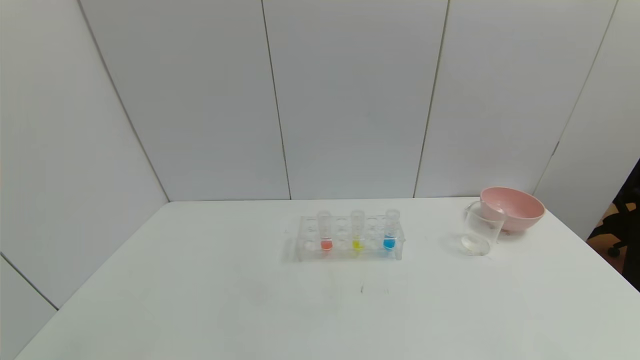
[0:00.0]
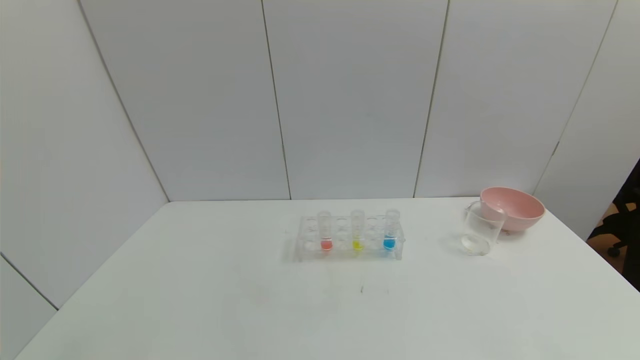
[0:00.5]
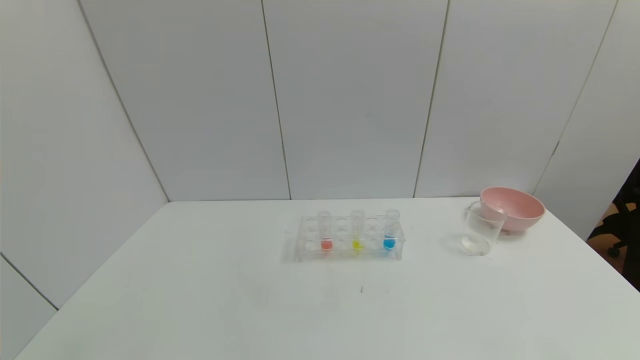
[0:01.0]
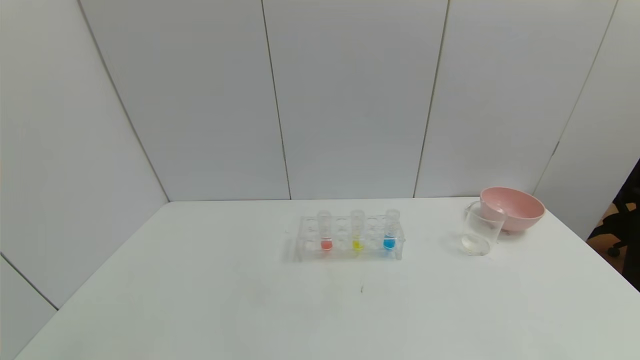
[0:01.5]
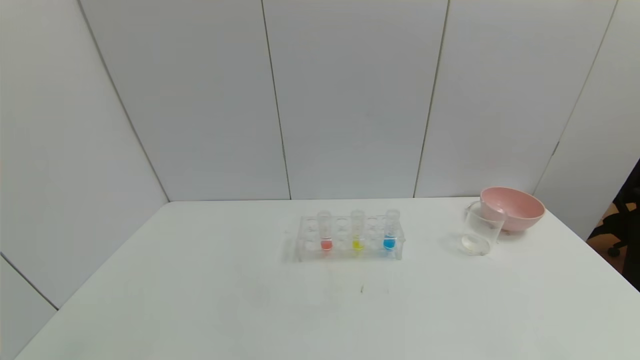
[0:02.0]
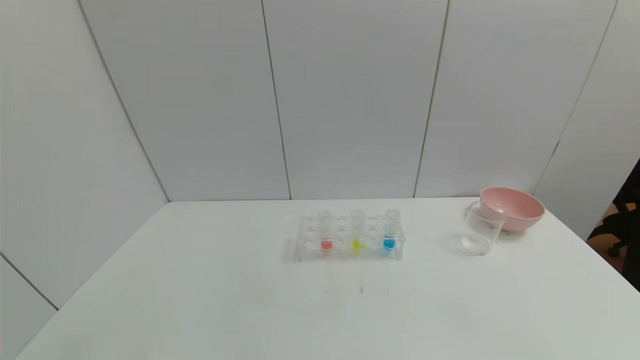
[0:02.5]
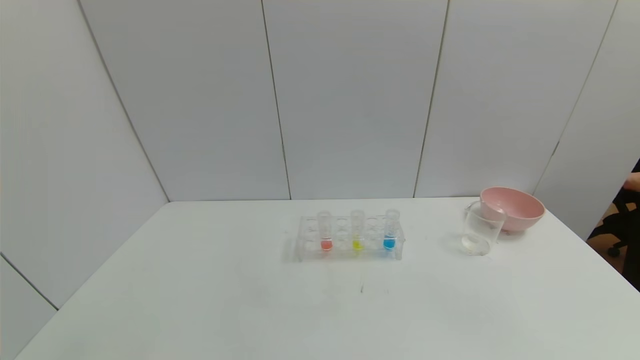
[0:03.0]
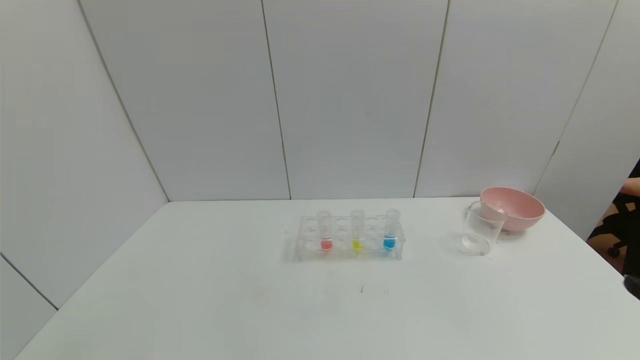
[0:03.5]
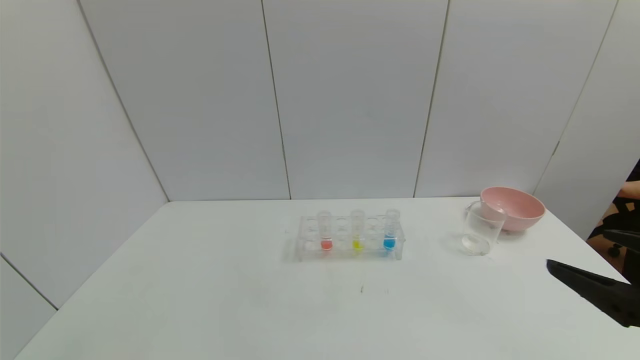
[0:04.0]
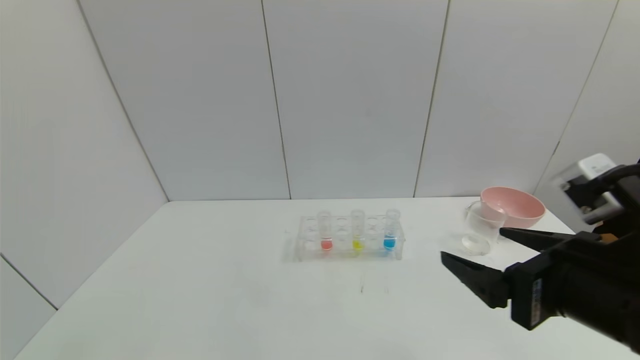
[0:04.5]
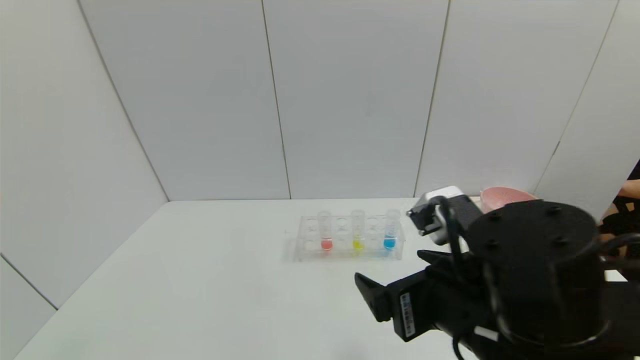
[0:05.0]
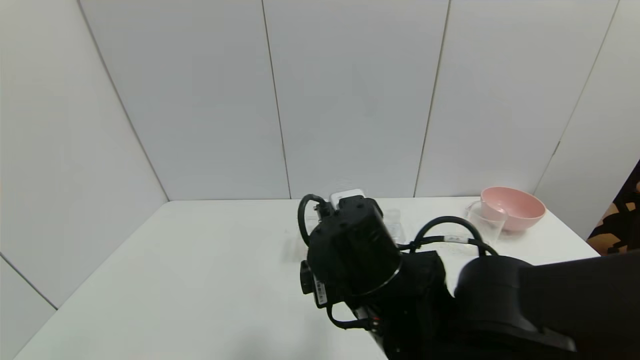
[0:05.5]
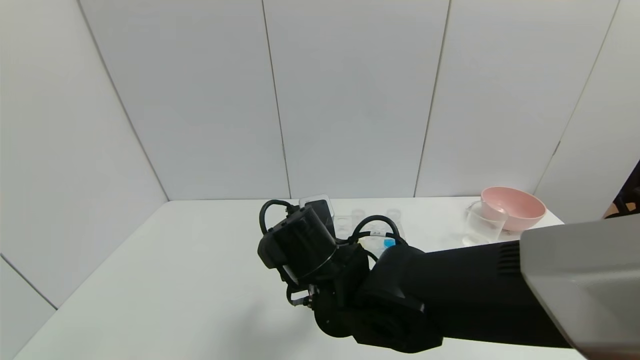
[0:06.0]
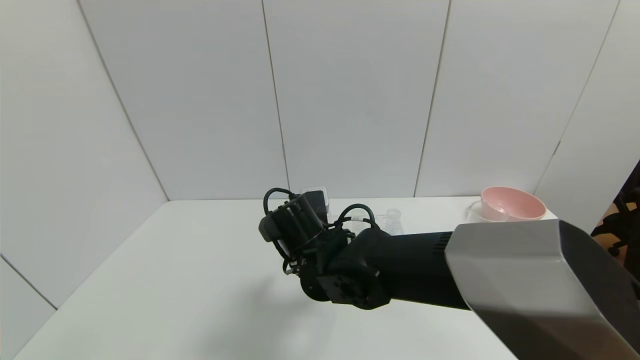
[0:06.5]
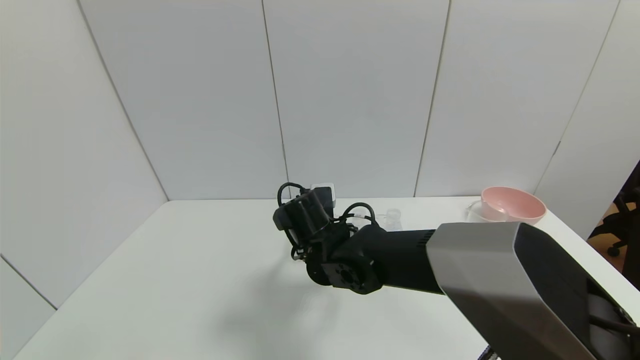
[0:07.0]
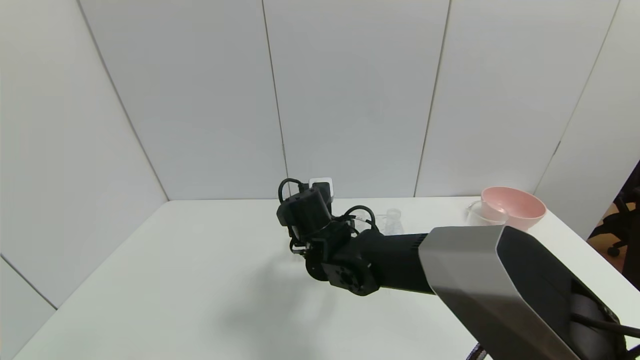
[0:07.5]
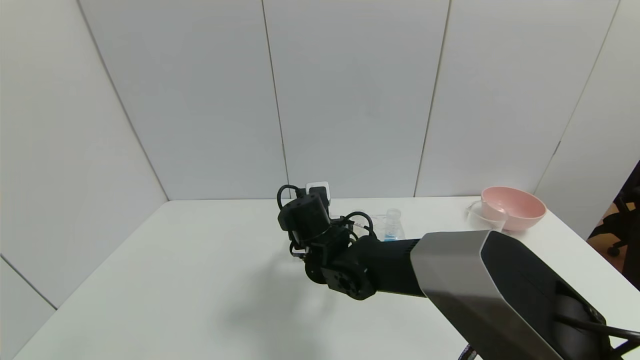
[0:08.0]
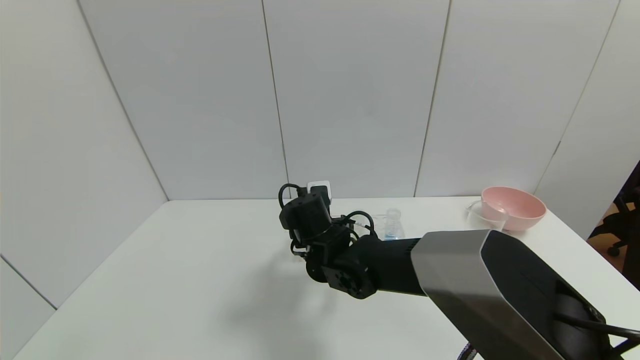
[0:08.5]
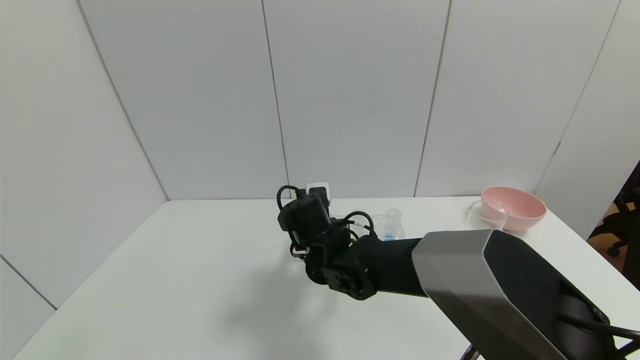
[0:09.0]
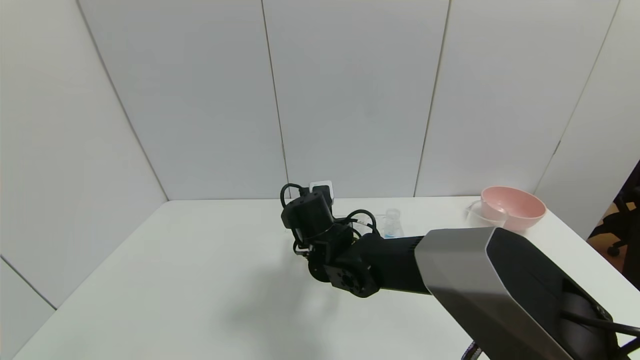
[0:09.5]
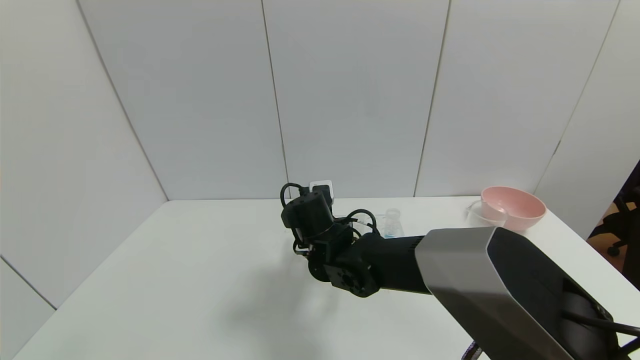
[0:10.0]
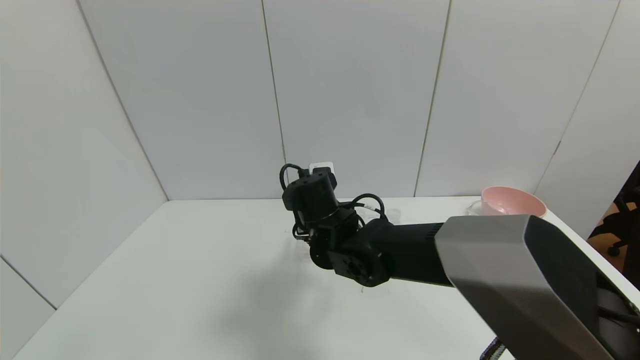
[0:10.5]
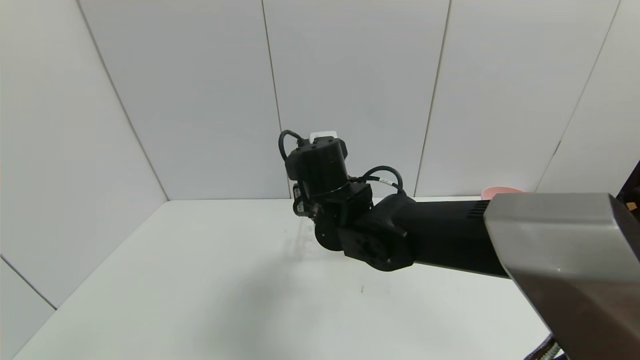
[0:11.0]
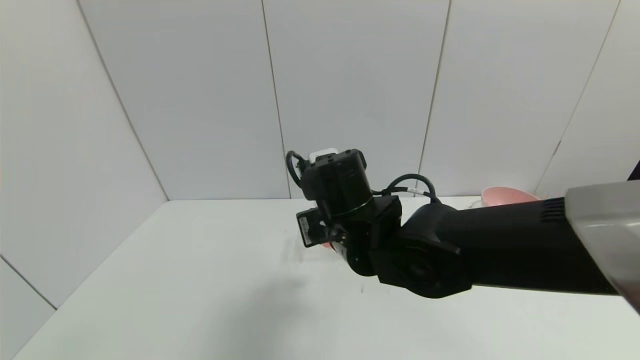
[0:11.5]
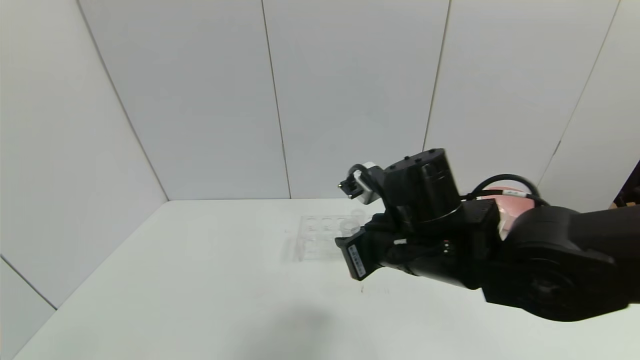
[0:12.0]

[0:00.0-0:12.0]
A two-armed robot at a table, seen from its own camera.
Task of the whole recording: pick up the test tube with yellow pigment and the test tube with red pigment by grippers and pour them into the beaker.
Step, 0:00.0 to 0:09.0: Grasp the red reagent with the right gripper.
0:00.0 to 0:02.0: Both grippers stay about where they are.
0:02.0 to 0:04.0: The right gripper moves upward and forward, some 20 cm.
0:04.0 to 0:06.0: The right gripper shifts some 35 cm to the left and forward.
0:06.0 to 0:08.0: The right gripper shifts some 10 cm forward.
0:08.0 to 0:10.0: The right gripper closes up.
0:10.0 to 0:12.0: The right gripper goes about 20 cm to the right, backward and upward.

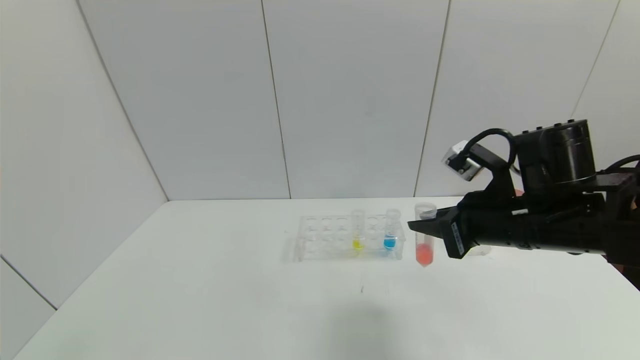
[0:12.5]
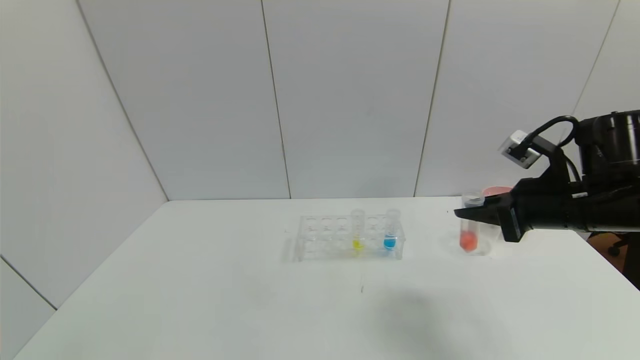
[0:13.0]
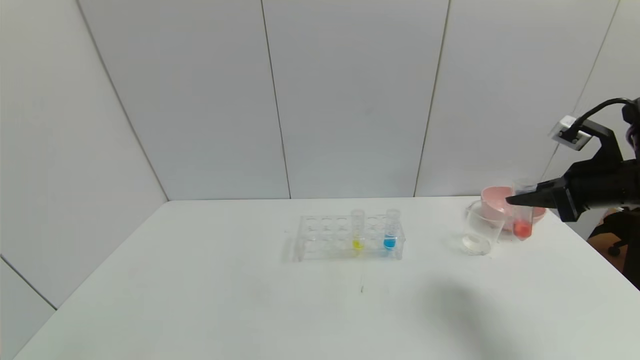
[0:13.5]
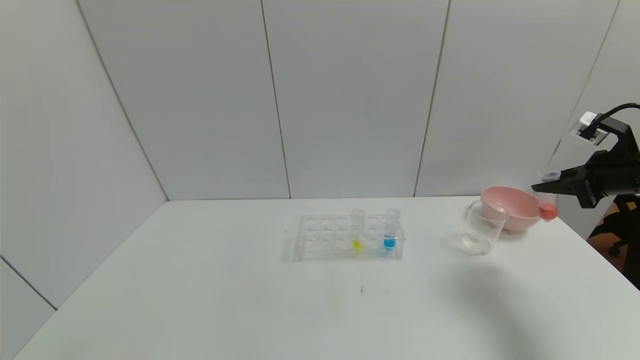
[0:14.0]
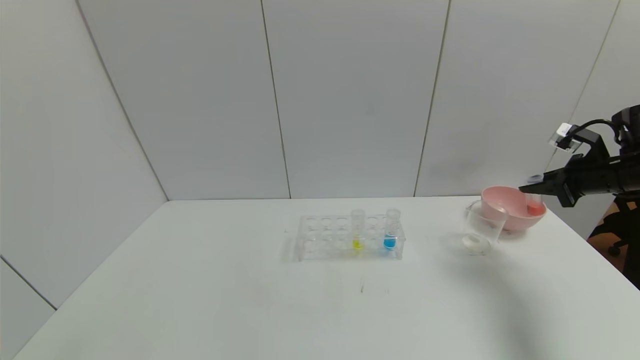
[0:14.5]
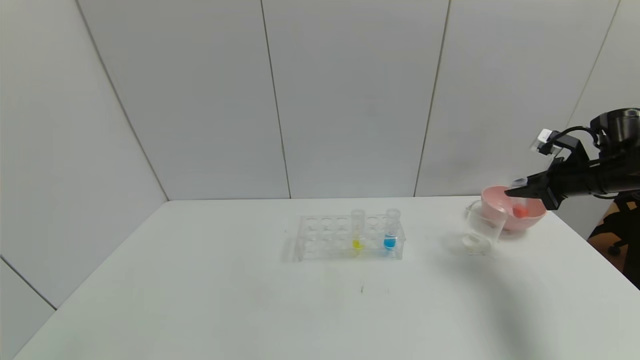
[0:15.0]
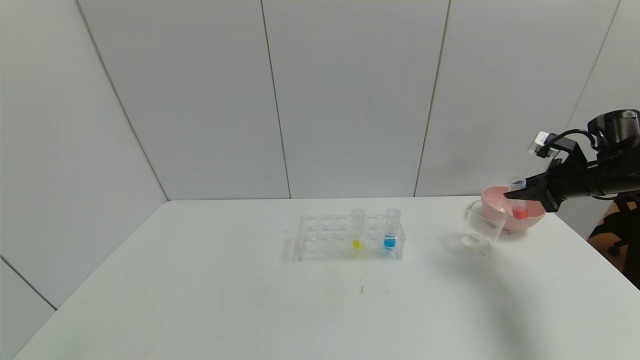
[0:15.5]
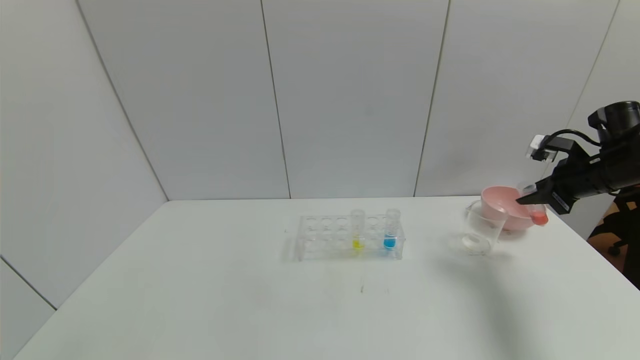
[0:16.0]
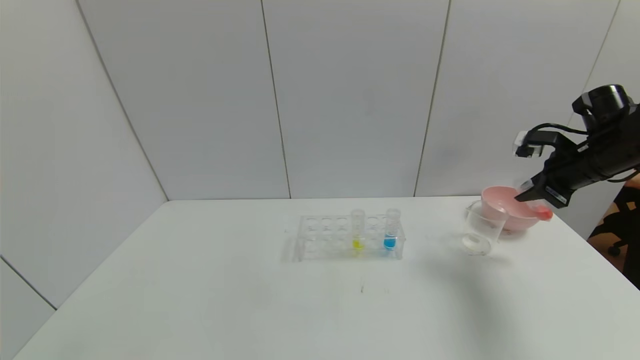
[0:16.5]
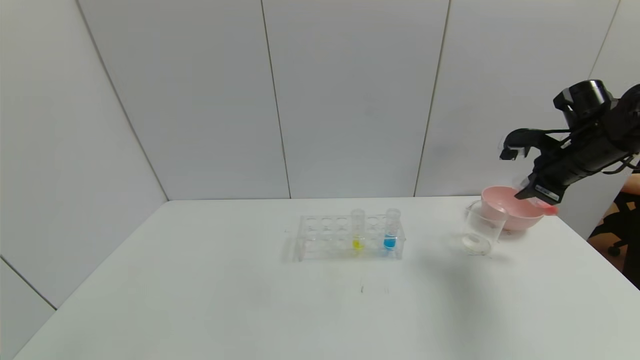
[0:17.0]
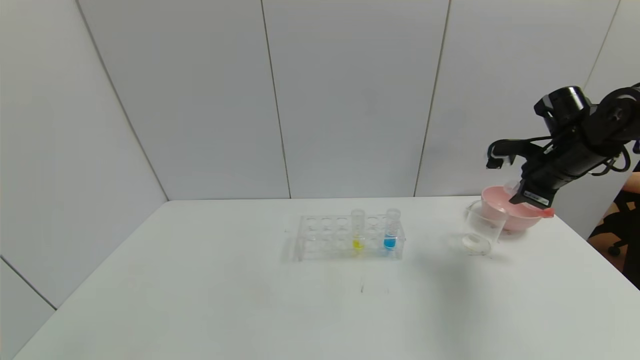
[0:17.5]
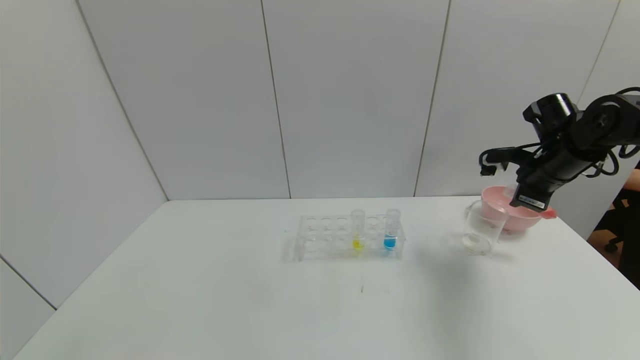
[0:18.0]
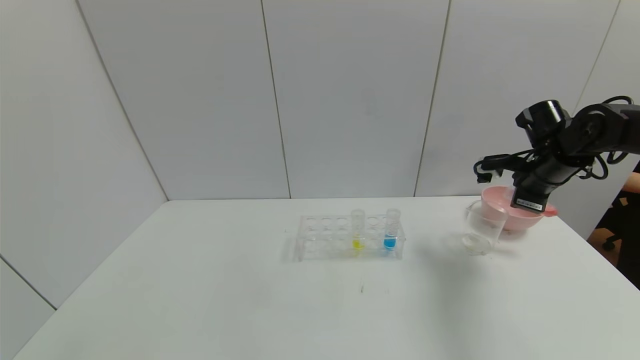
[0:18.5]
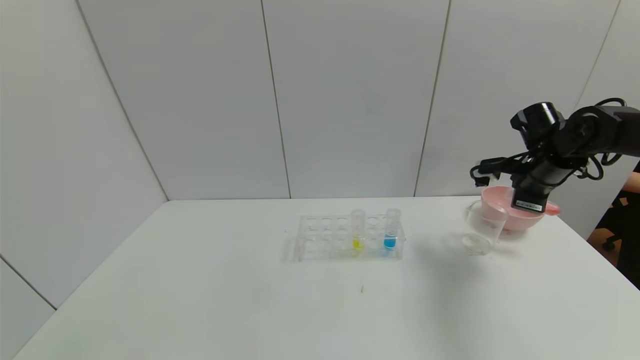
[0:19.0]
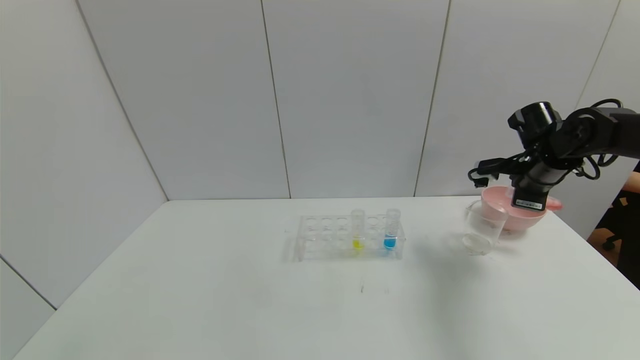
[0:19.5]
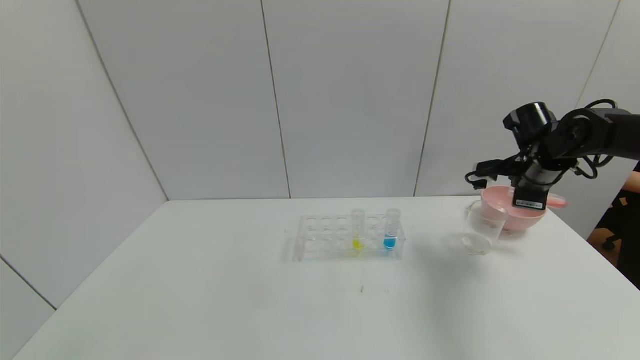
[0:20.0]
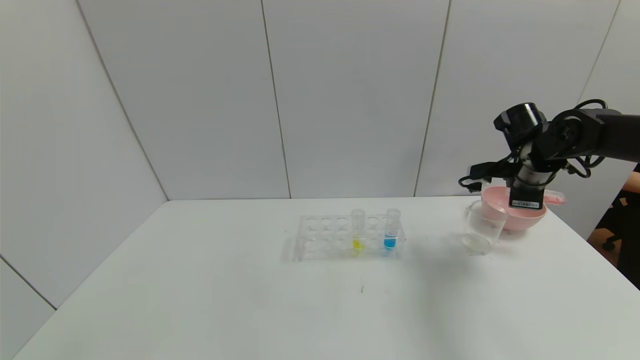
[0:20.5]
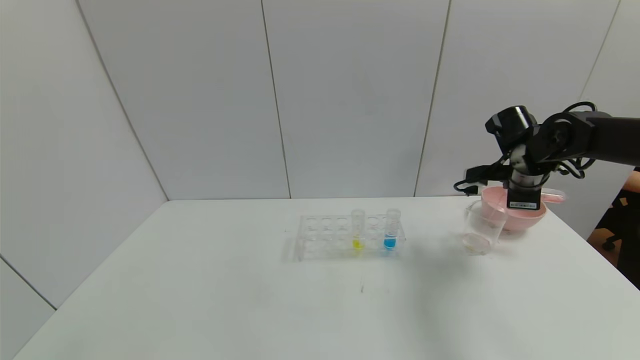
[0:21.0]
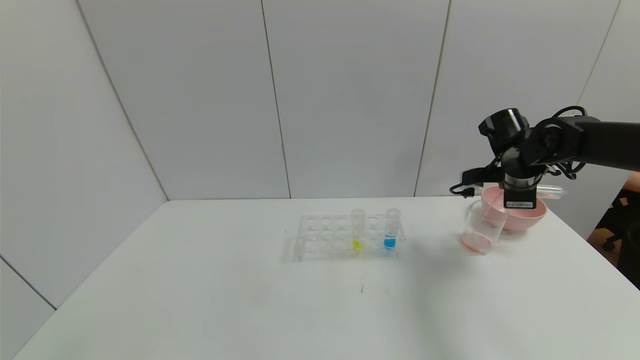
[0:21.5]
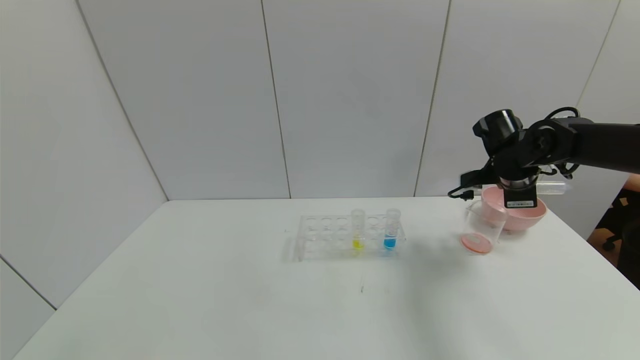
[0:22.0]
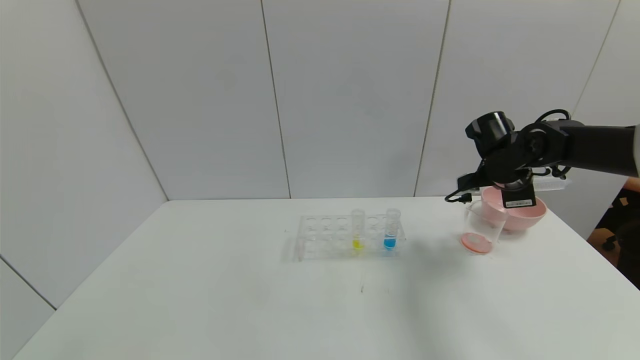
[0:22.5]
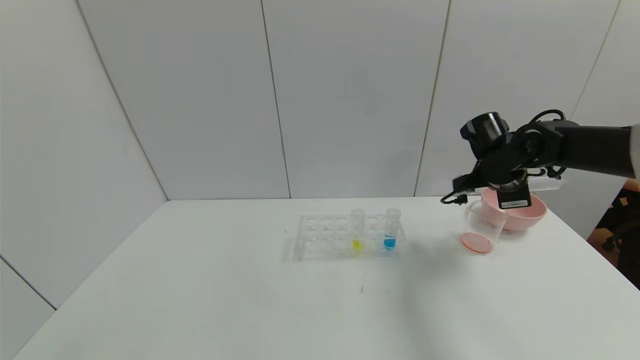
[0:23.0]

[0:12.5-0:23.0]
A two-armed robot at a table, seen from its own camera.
Task of the whole recording: pick up the test tube with yellow pigment and the test tube with red pigment by grippers and pour them into the beaker.
0:12.5 to 0:14.5: The right gripper heads to the right and forward, covering some 25 cm.
0:14.5 to 0:16.5: The right gripper goes approximately 5 cm to the left.
0:16.5 to 0:19.0: The right gripper moves about 5 cm.
0:19.0 to 0:21.0: The grippers stay close to where they were, moving slightly.
0:21.0 to 0:23.0: The grippers stay close to where they were, moving slightly.
